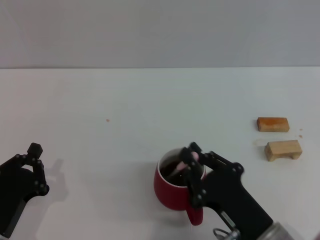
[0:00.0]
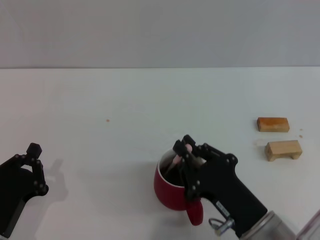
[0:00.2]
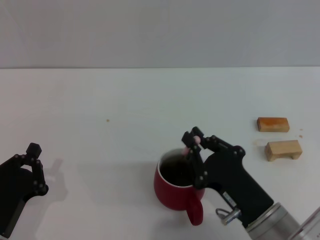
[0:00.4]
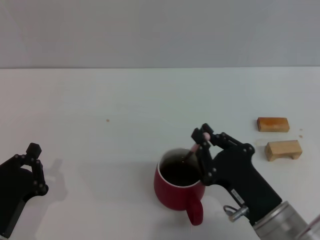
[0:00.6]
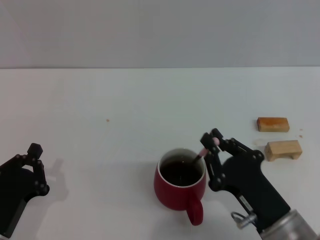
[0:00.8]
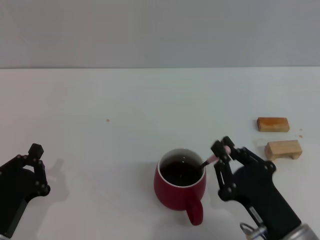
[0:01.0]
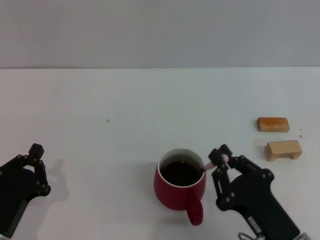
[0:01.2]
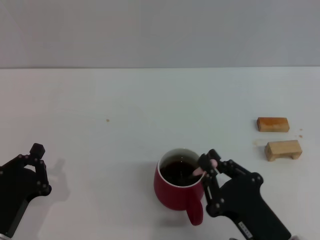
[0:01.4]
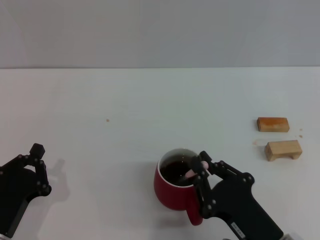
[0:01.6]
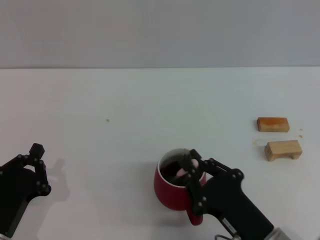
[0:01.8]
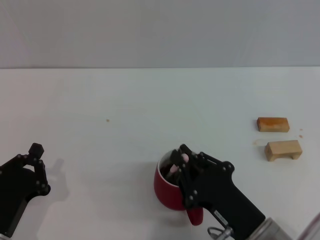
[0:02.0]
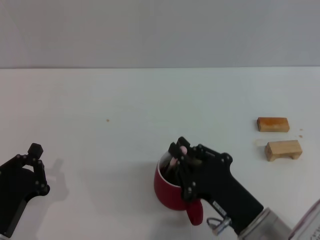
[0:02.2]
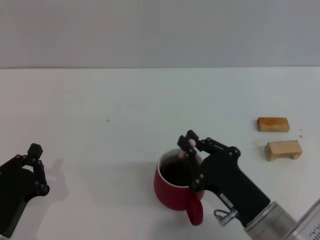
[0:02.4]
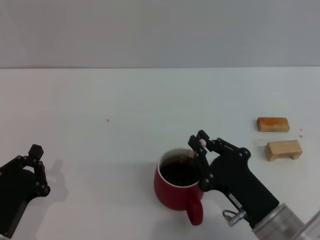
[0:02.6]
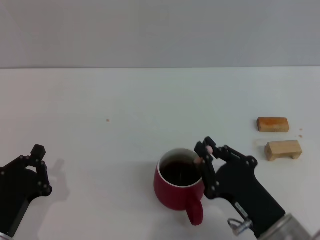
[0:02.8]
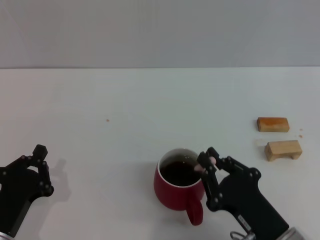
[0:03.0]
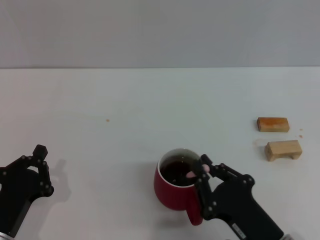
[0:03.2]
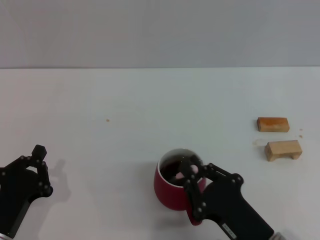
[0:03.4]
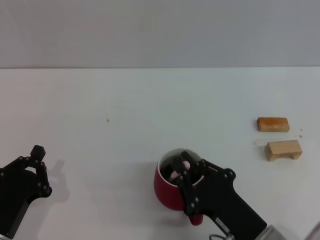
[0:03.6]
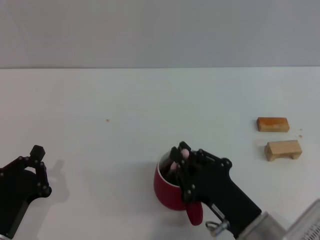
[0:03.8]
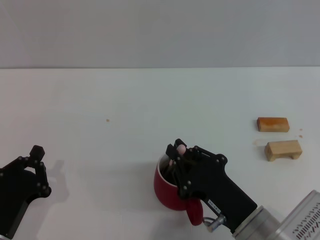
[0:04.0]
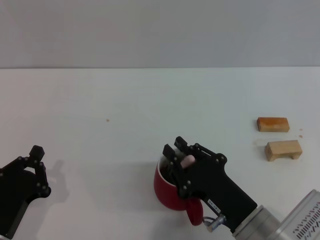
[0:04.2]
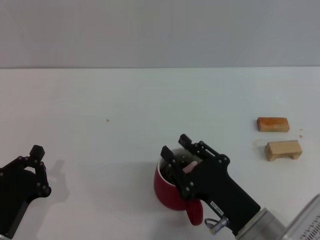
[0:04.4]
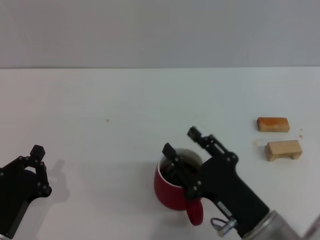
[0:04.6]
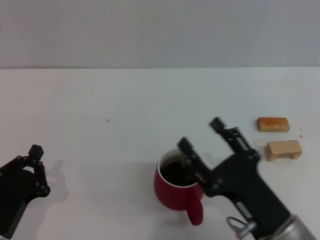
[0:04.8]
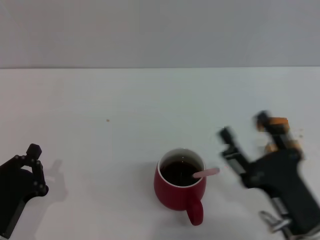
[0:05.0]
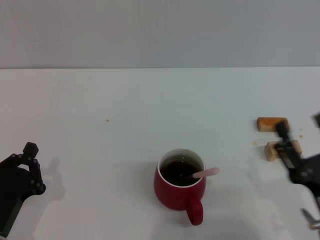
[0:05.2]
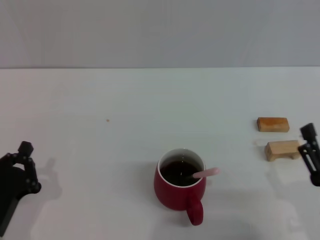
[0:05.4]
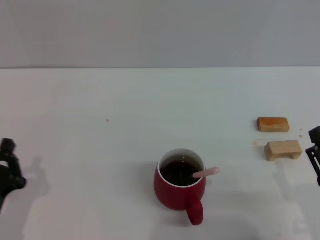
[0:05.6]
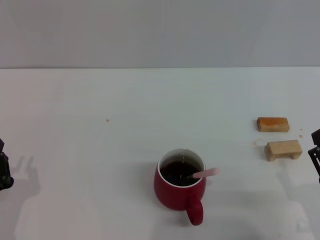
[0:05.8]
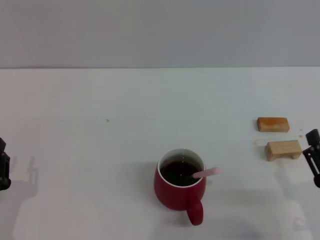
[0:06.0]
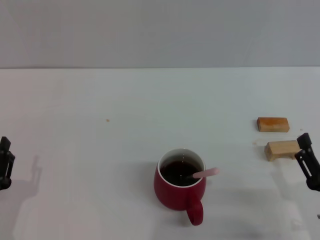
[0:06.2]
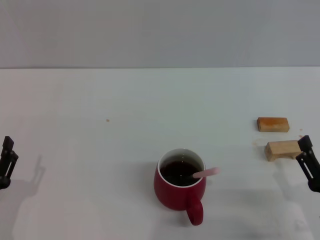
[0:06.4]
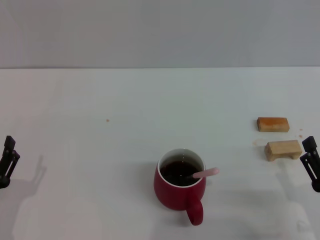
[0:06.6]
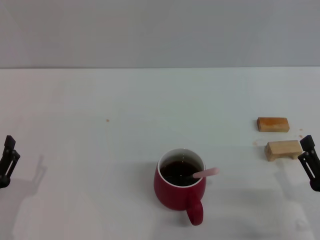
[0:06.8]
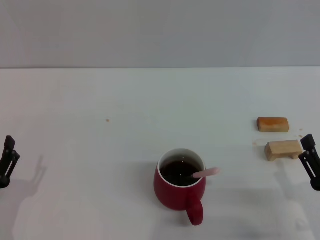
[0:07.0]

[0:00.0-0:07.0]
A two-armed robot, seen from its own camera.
Task of the whole recording: Move the red cup to the center, lift the pink spoon, stir it three times in the cup, and put the spoon into the cup.
Step, 0:00.0 to 0:04.6: Stir the coffee in the cup with the right gripper.
0:00.0 to 0:04.2: The grippers make only small movements.
0:04.2 to 0:05.6: The right gripper is displaced to the right by approximately 10 cm, and opens.
0:05.6 to 0:07.0: The left gripper opens.

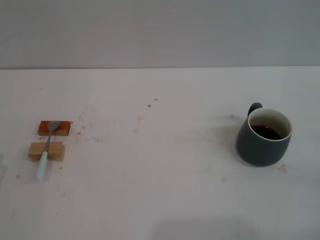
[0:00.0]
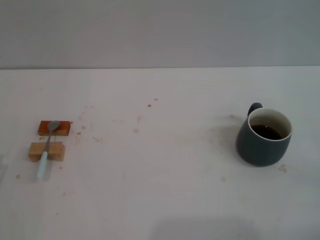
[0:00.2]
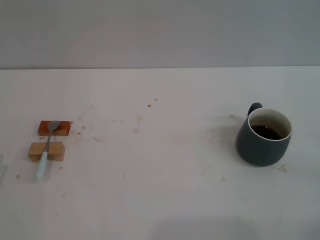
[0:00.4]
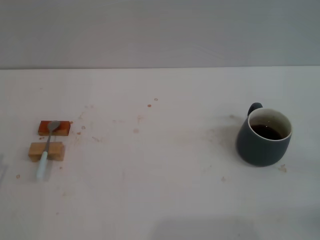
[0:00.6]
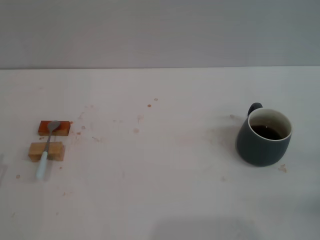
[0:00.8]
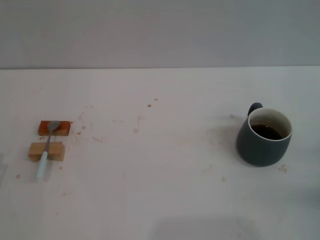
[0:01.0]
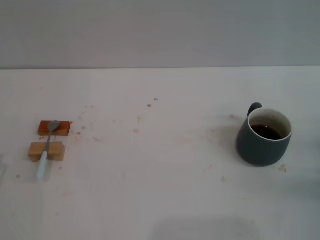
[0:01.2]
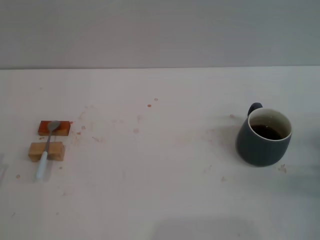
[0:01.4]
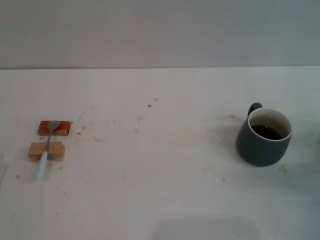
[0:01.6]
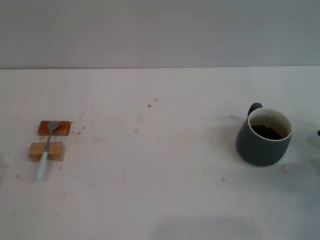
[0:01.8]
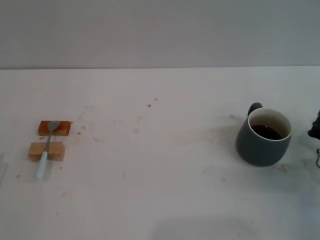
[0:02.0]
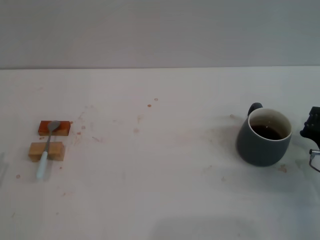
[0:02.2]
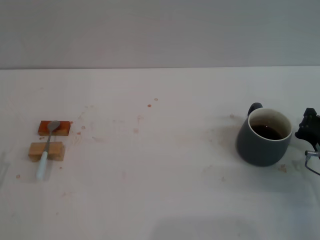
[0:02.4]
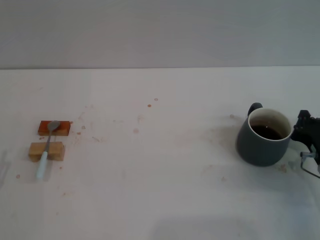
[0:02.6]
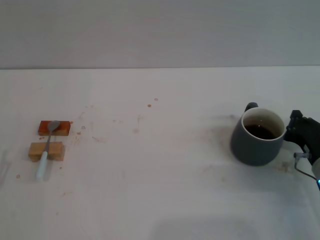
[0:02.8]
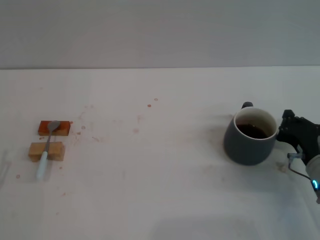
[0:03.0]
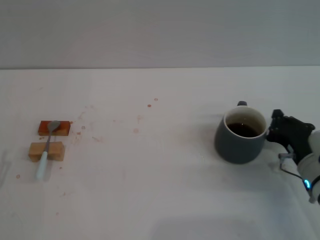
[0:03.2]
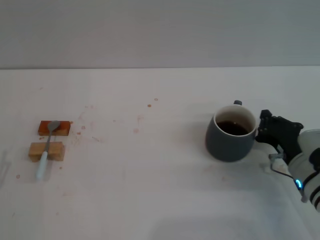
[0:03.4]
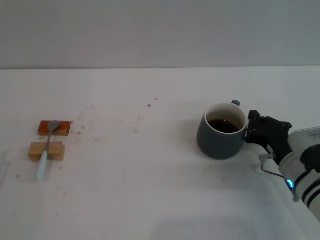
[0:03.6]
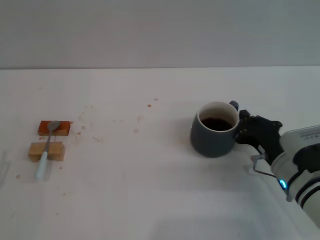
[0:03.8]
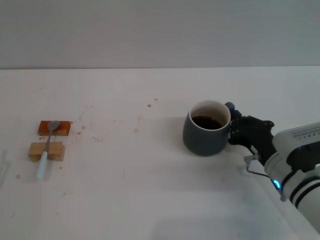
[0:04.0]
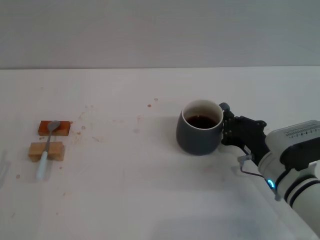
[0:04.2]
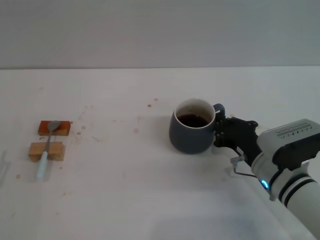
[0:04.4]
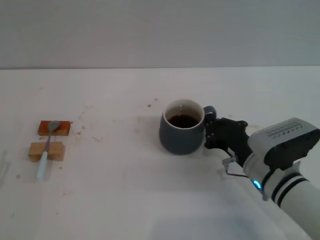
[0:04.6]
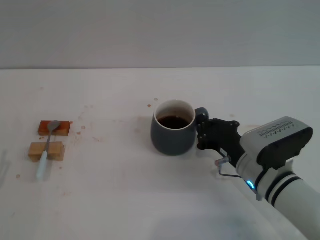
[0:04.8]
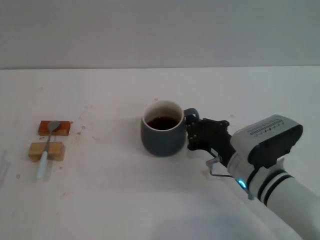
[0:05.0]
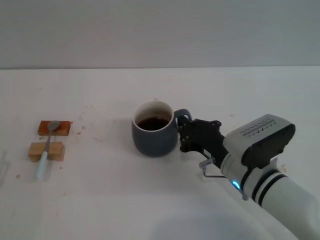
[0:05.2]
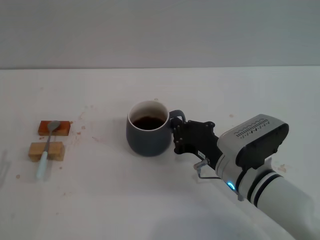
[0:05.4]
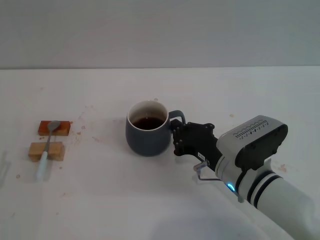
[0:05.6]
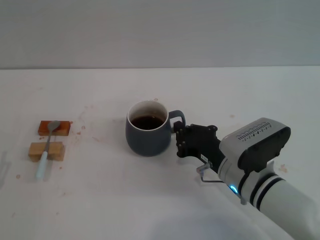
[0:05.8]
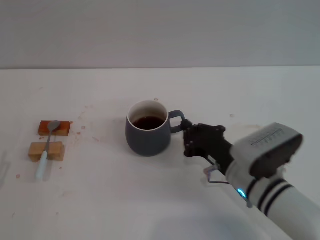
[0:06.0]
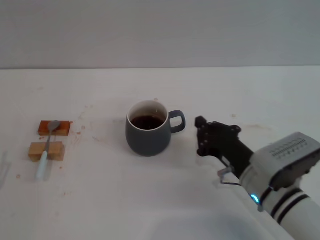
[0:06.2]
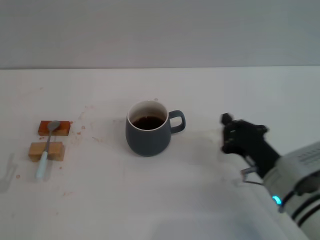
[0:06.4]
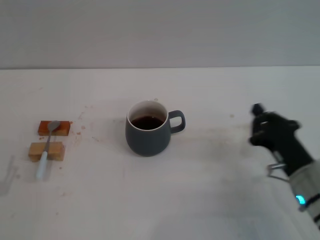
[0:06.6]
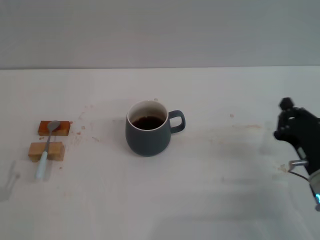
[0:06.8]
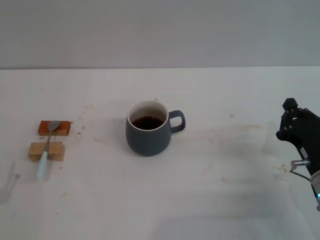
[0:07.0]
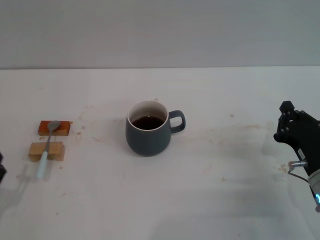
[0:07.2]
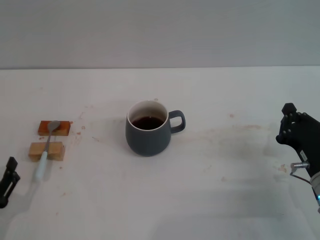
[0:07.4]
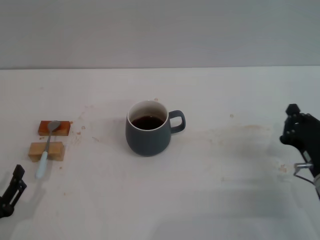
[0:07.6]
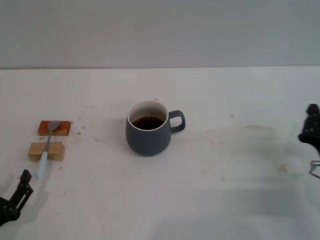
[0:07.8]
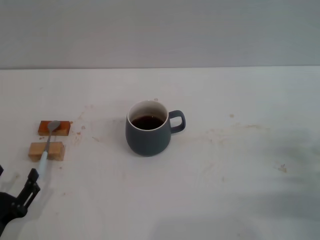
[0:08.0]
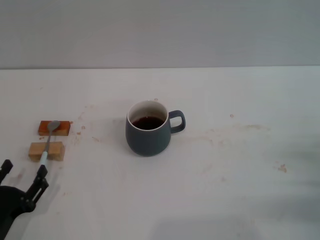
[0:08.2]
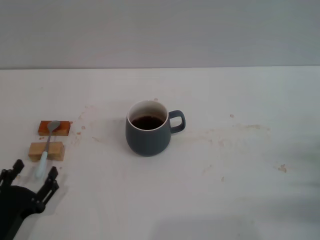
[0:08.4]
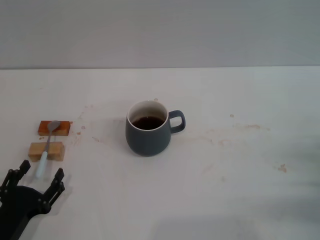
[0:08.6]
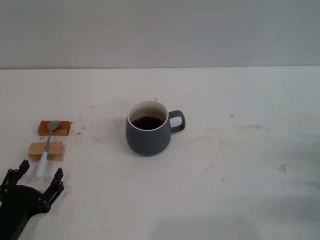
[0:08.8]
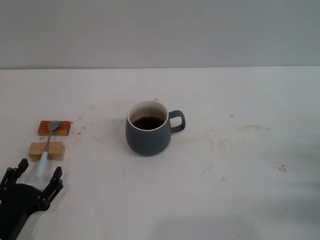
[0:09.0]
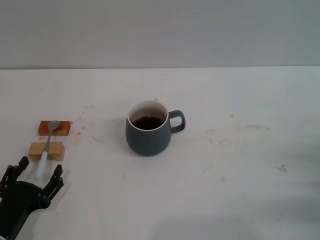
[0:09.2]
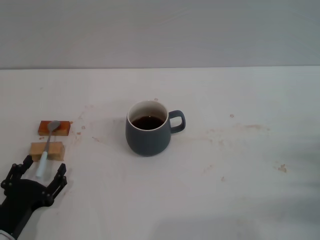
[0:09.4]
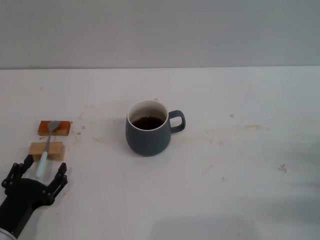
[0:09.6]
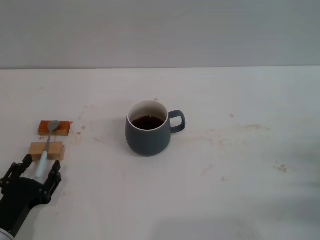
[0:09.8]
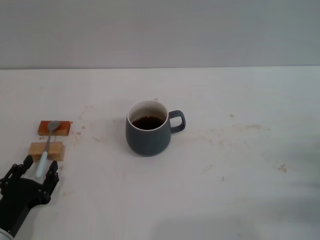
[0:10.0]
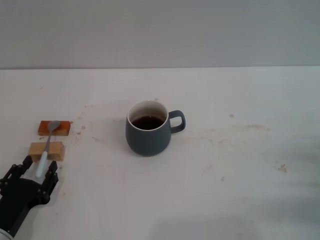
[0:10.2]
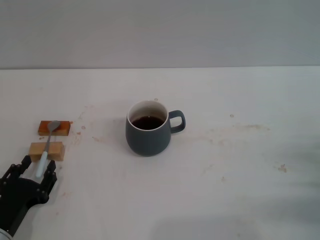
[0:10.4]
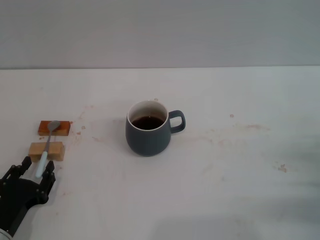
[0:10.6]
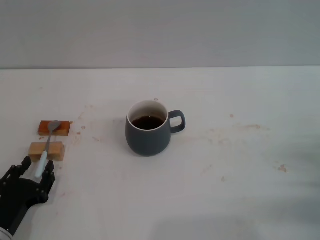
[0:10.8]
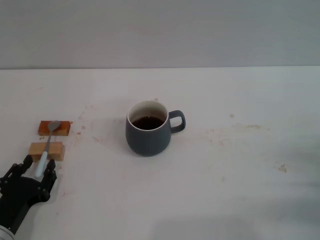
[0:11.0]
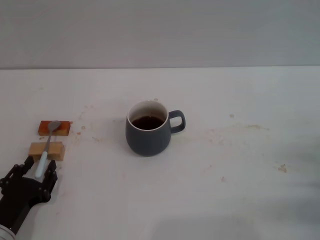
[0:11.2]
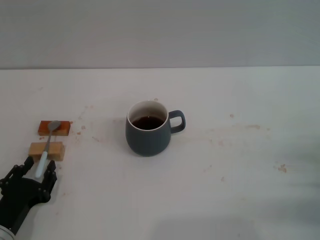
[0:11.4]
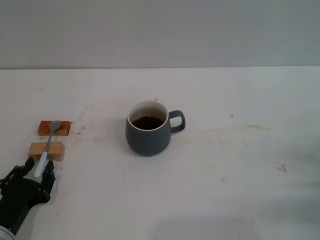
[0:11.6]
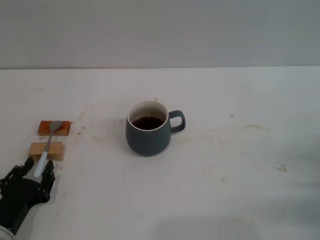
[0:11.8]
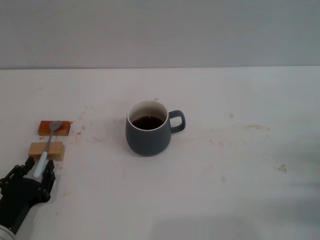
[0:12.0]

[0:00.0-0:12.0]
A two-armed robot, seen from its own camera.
Task of the whole recording: Move the grey cup to the center, lift the blue spoon, stir it three times in the cup, and put the spoon into the cup.
Step, 0:00.0 to 0:06.2: Move the cup with coffee to the center of view with the right gripper.
0:00.0 to 0:01.6: The right gripper shifts some 10 cm forward.
0:01.6 to 0:03.0: The right gripper goes roughly 5 cm to the left.
0:03.0 to 0:04.4: The right gripper moves to the left, approximately 10 cm.
0:04.4 to 0:06.0: There are only small adjustments of the grippers.
0:06.0 to 0:07.6: The left gripper shifts by approximately 5 cm, while the right gripper moves to the right, about 10 cm.
0:07.6 to 0:09.0: The right gripper moves to the right, approximately 5 cm.
0:09.0 to 0:10.4: The two grippers keep their place.
0:10.4 to 0:12.0: The two grippers keep their place.

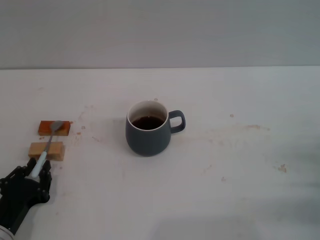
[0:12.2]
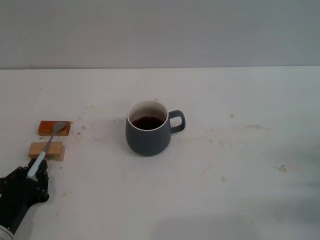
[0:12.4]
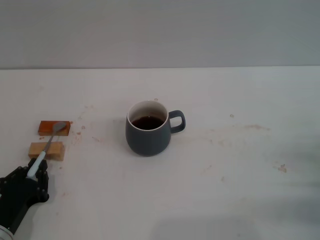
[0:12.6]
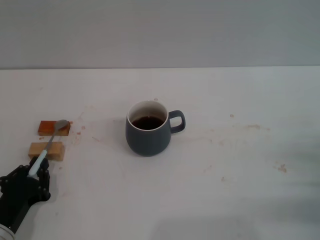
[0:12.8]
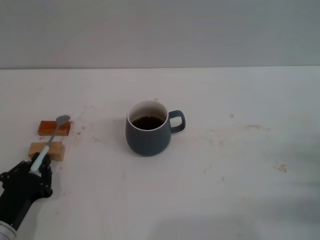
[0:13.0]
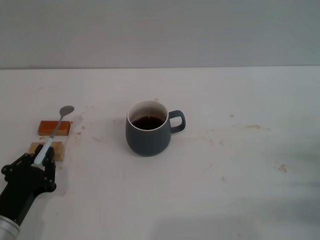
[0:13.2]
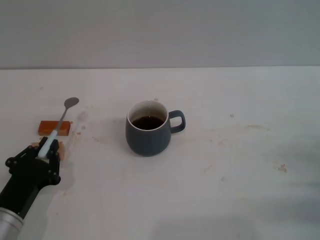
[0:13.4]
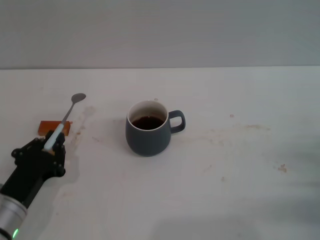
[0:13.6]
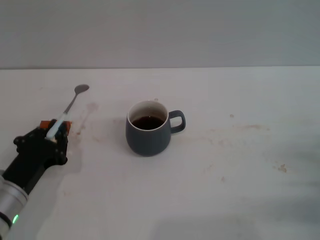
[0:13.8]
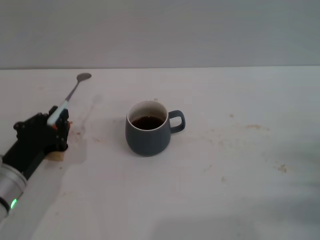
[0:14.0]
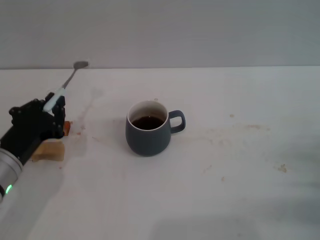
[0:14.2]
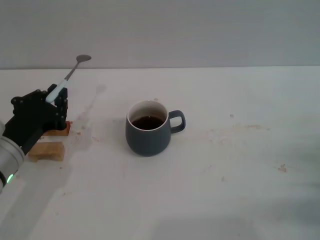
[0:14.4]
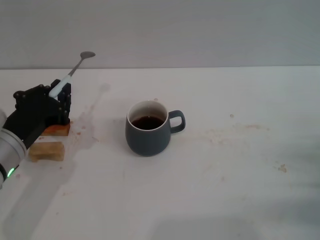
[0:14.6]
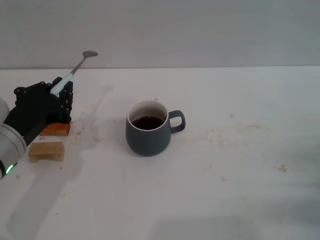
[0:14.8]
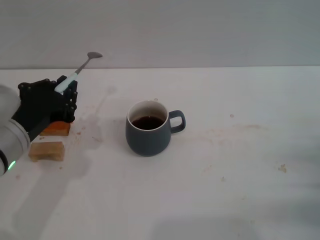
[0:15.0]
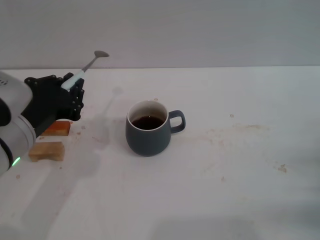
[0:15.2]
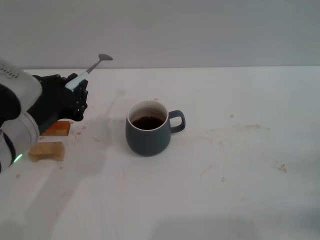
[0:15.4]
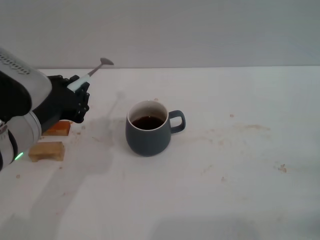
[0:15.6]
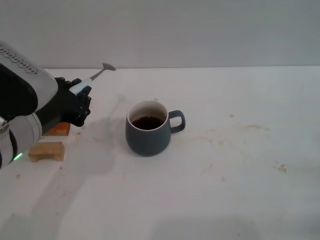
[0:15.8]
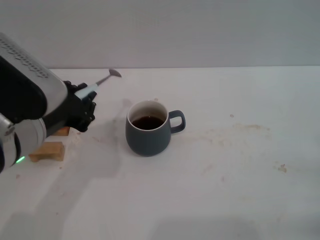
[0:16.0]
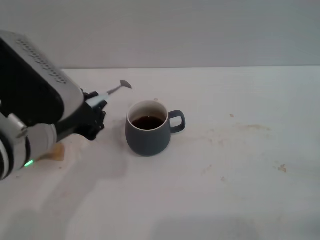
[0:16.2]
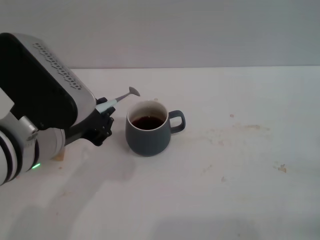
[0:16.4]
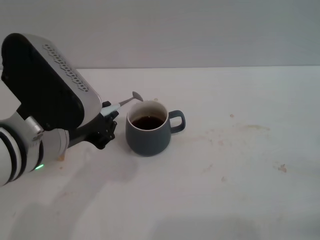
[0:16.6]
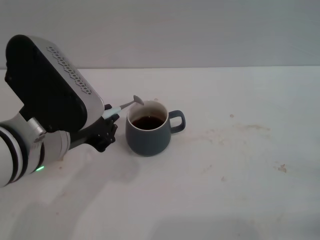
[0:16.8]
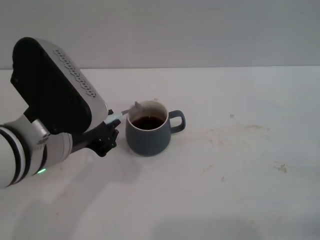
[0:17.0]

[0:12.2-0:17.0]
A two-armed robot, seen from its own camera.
Task of the whole recording: Move the grey cup to the center, lift the blue spoon, stir it three times in the cup, and put the spoon into the cup.
Step, 0:12.2 to 0:14.2: Pick up the spoon with the left gripper.
0:12.2 to 0:13.8: The left gripper moves some 5 cm.
0:13.8 to 0:15.4: The left gripper goes about 15 cm upward.
